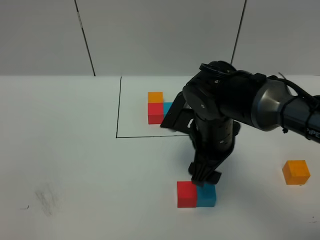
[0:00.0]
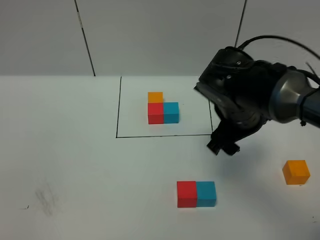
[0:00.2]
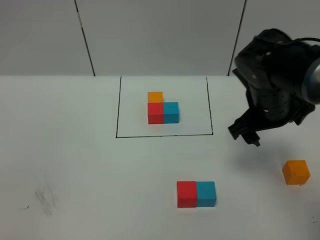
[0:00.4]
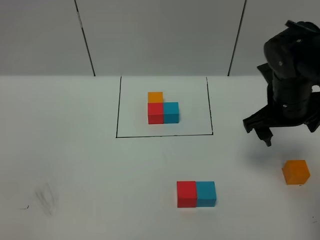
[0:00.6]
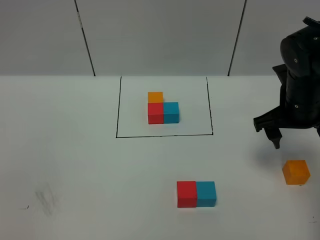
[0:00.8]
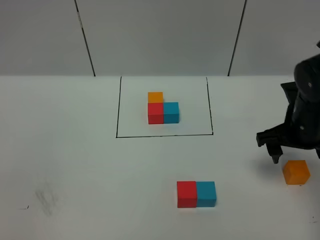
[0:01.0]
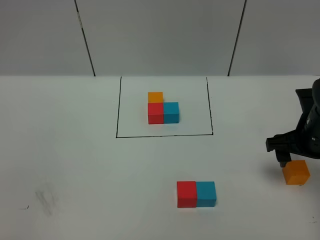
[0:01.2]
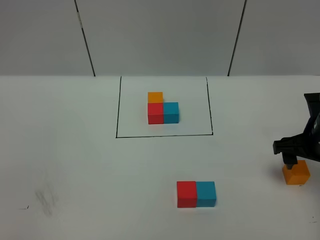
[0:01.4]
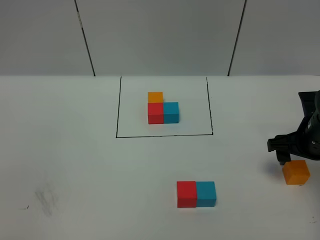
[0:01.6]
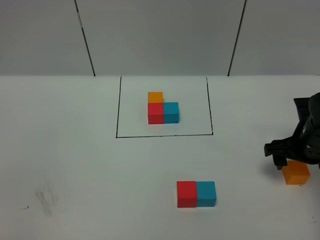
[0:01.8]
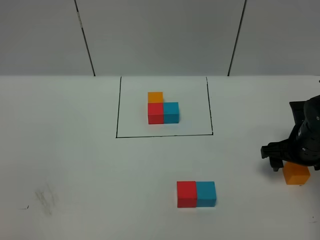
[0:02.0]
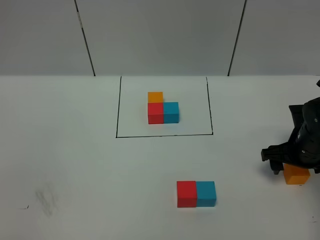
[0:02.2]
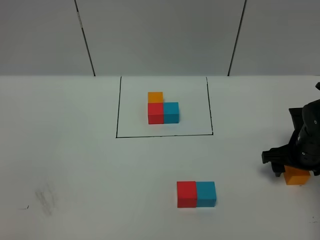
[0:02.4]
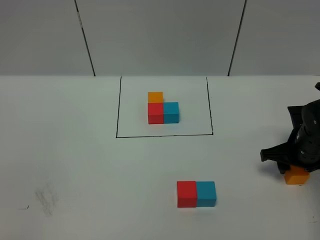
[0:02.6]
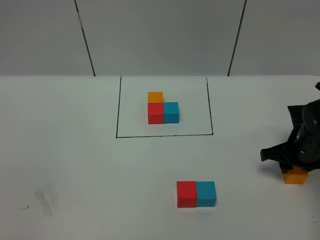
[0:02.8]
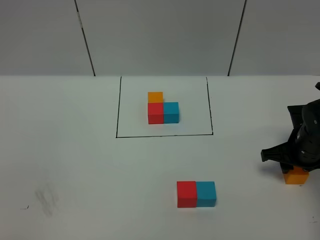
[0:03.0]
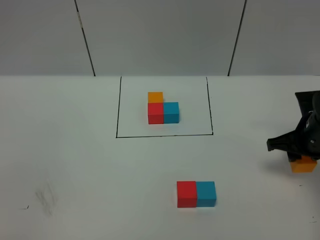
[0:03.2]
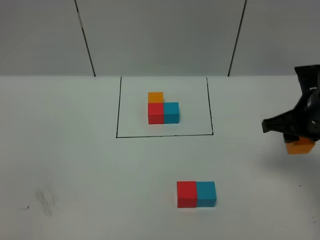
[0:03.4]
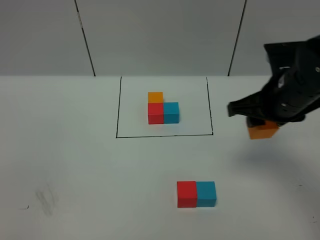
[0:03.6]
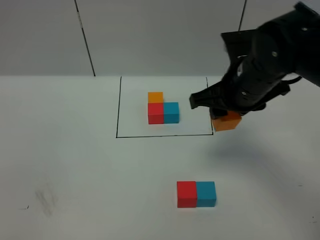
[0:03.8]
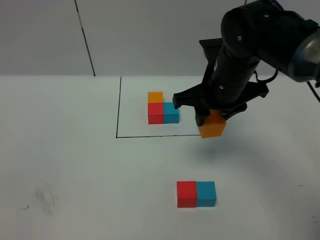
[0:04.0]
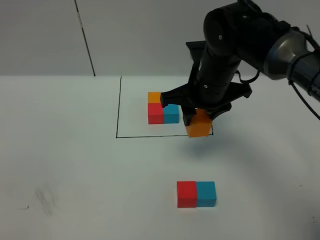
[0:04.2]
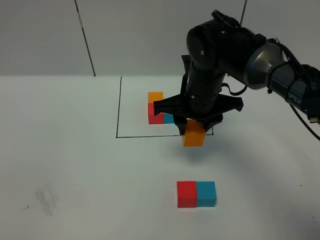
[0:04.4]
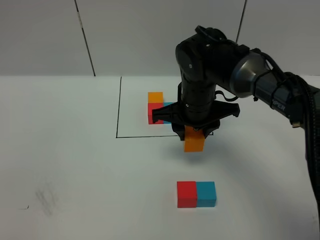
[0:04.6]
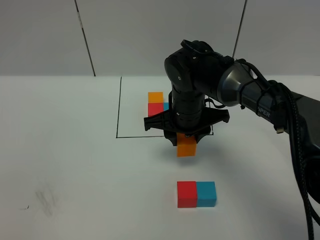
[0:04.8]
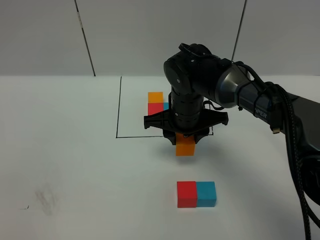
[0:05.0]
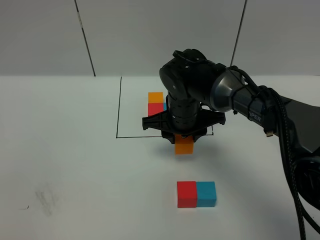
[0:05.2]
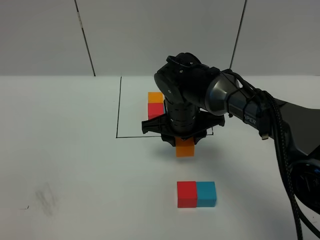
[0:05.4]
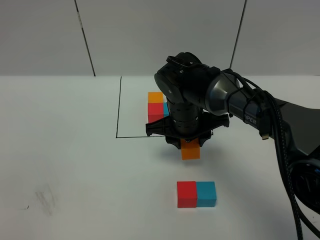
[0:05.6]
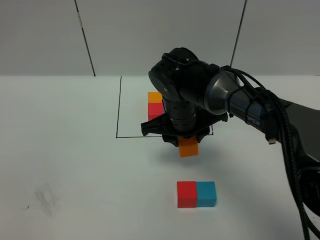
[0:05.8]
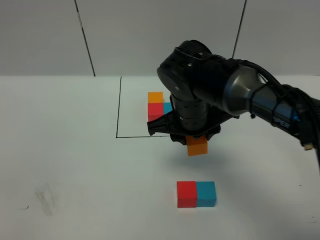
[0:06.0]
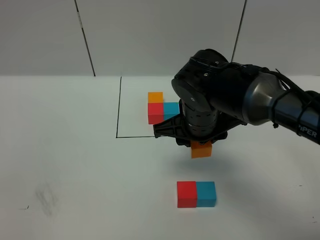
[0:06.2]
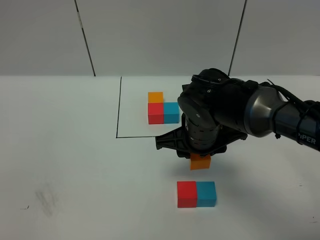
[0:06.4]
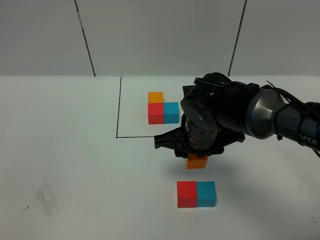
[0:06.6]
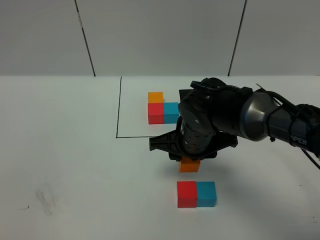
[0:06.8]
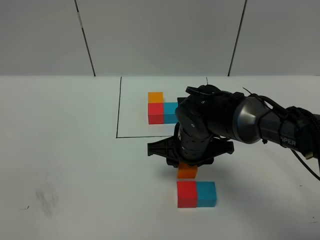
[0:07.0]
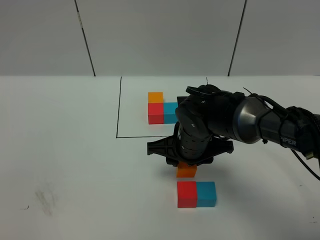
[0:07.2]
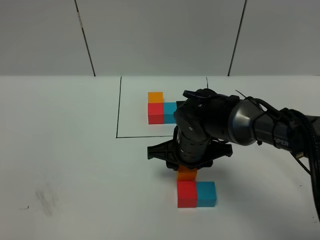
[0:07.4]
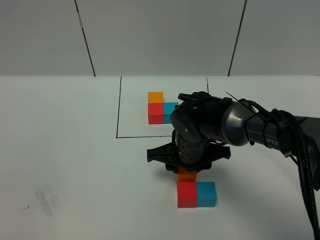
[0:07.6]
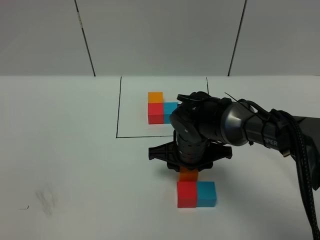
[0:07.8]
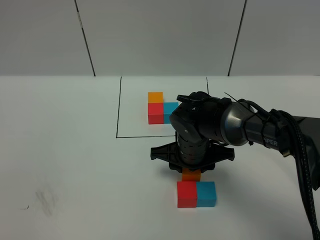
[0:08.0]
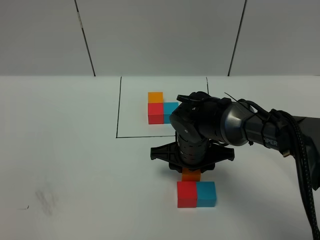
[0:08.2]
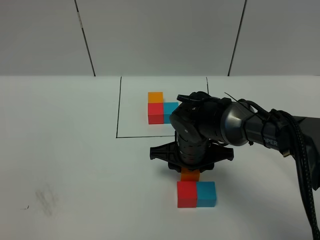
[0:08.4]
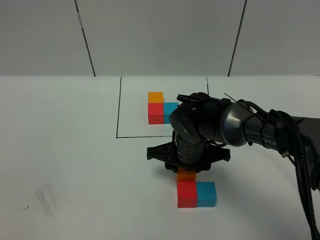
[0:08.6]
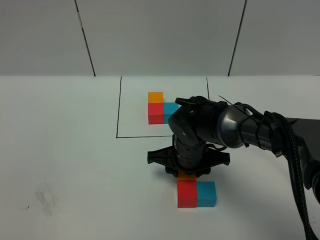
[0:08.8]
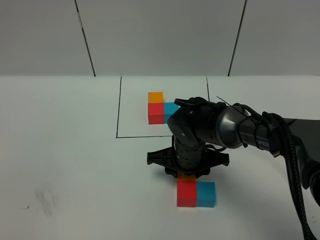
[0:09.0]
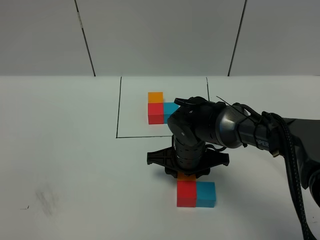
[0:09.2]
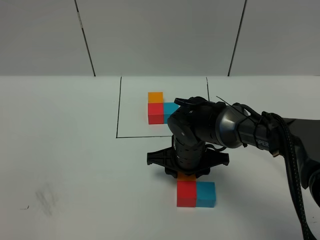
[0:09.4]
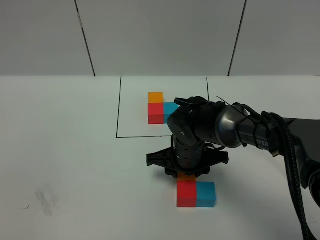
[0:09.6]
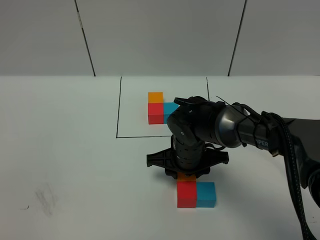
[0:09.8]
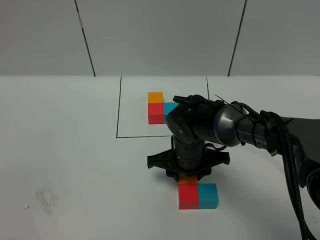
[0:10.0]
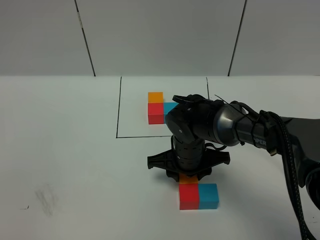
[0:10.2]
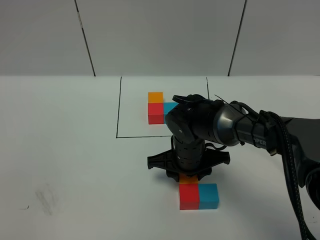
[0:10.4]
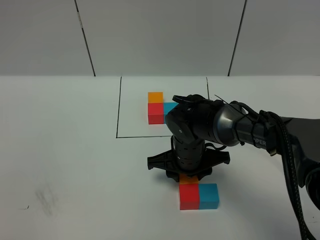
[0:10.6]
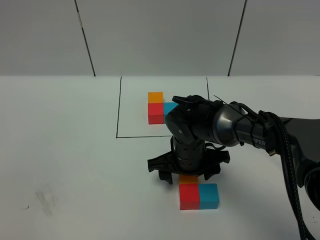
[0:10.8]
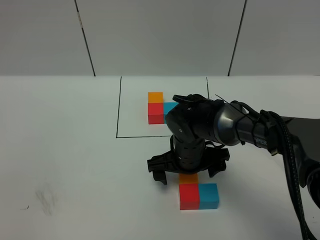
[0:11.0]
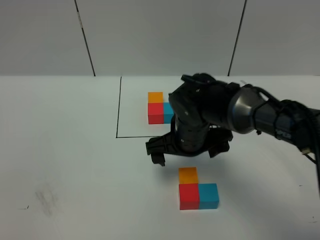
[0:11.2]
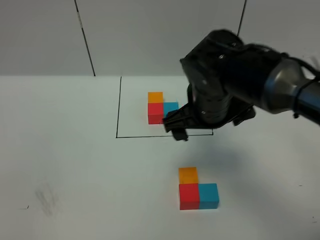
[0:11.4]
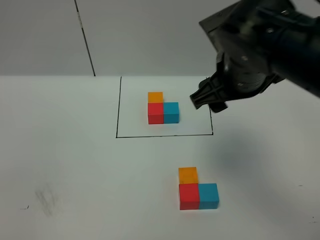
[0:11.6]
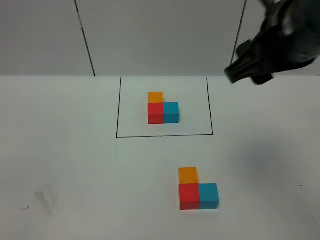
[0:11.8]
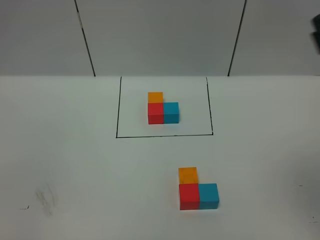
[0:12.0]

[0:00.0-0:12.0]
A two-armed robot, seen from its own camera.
Task of the whole recording: According to the building block template in front, assemble the scattered blocks together.
Step, 0:00.0 to 0:10.8: Put the orange cube on the behind of the red cube.
0:00.0 to 0:01.6: The right gripper travels to the right by approximately 20 cm.
0:01.6 to 0:03.0: The right gripper closes.
0:03.0 to 0:04.4: The right gripper is displaced to the left and upward by about 25 cm.
0:06.0 to 0:07.6: The right gripper heads downward, covering approximately 10 cm.
0:07.6 to 0:10.4: The grippers stay close to where they were, moving slightly.
0:10.4 to 0:12.0: The right gripper shifts approximately 50 cm upward, to the right and backward, and opens up.
